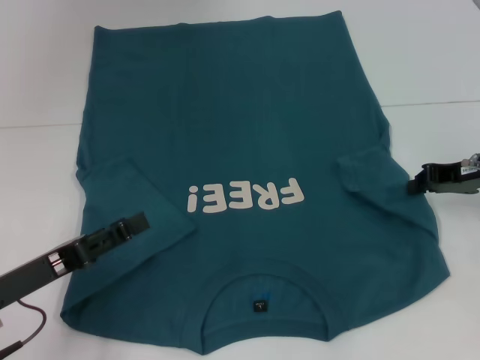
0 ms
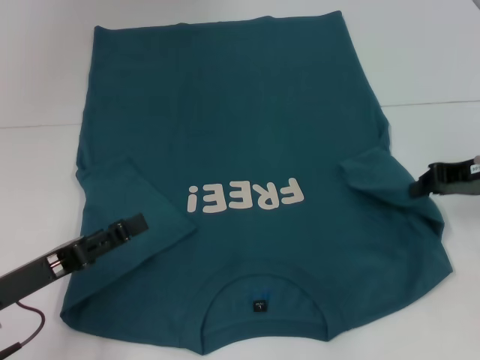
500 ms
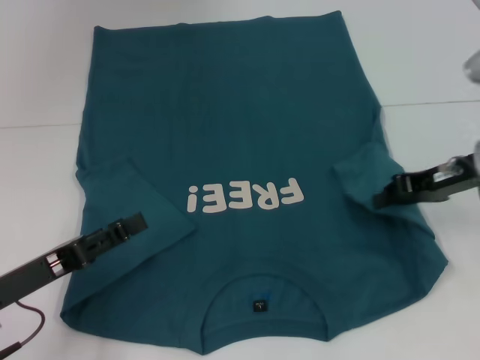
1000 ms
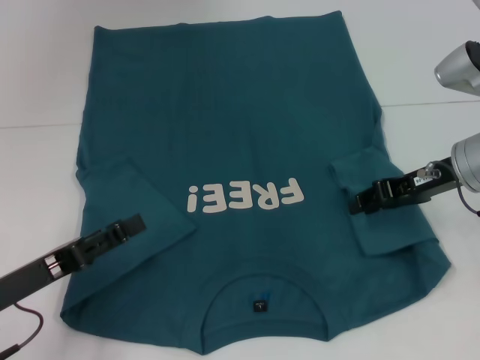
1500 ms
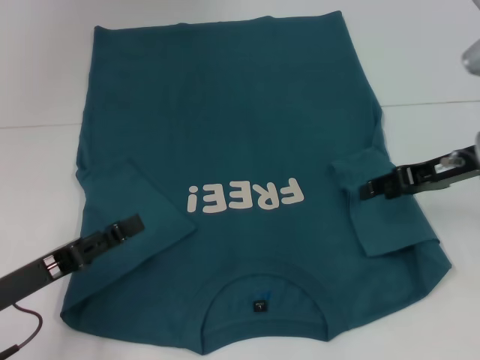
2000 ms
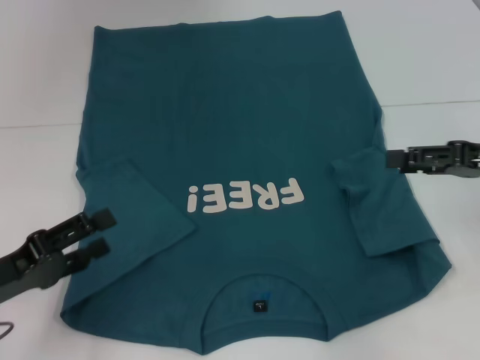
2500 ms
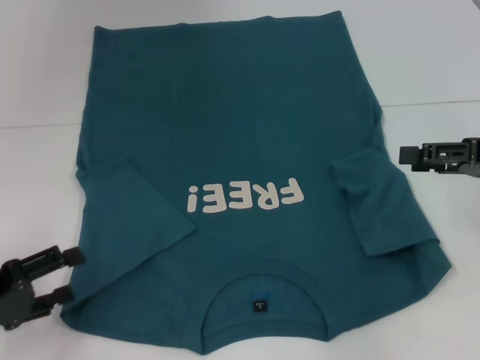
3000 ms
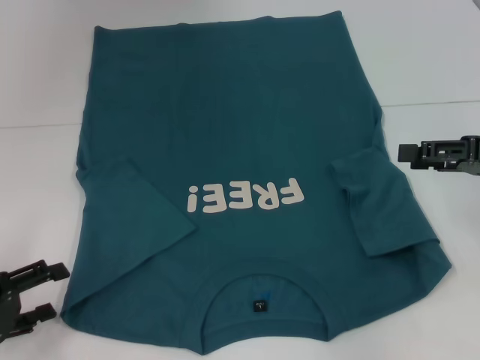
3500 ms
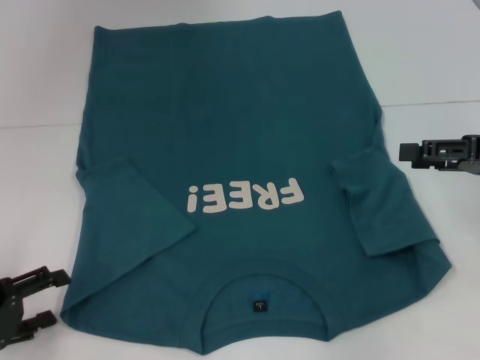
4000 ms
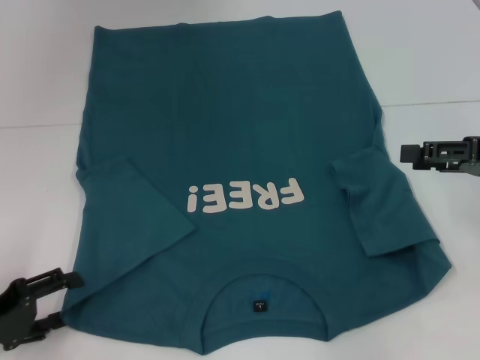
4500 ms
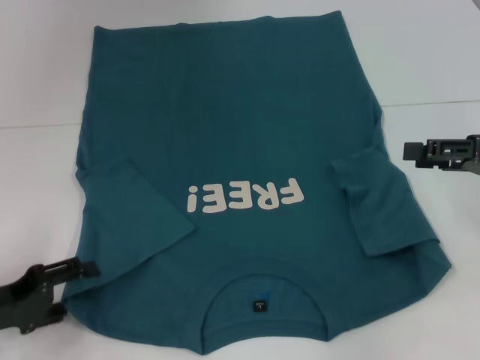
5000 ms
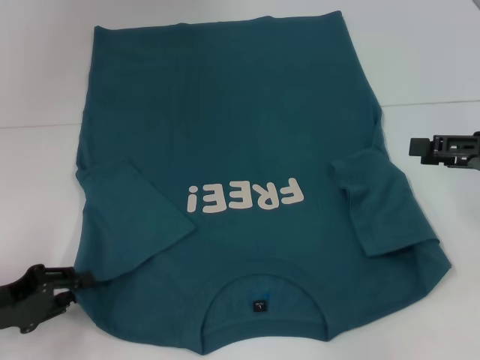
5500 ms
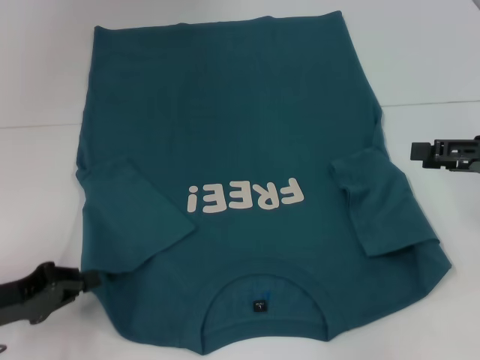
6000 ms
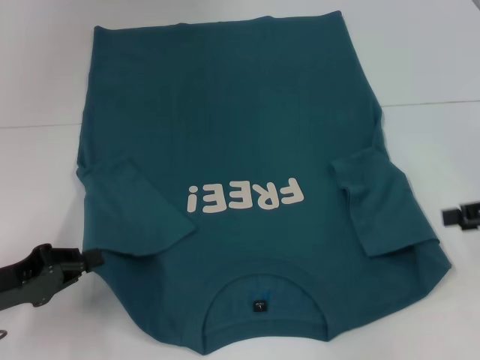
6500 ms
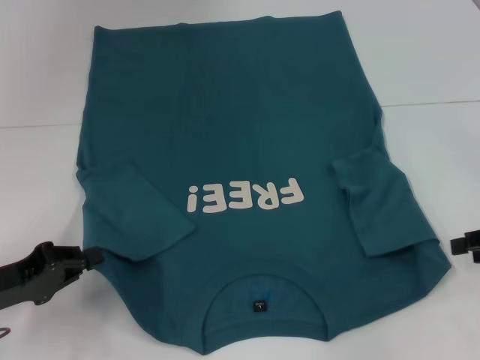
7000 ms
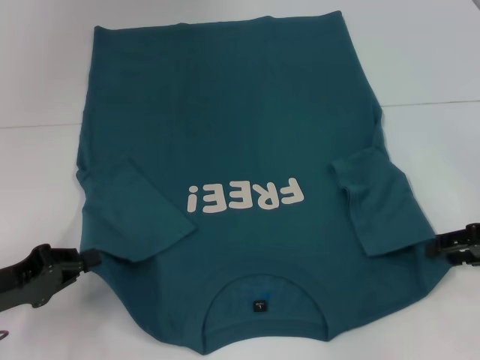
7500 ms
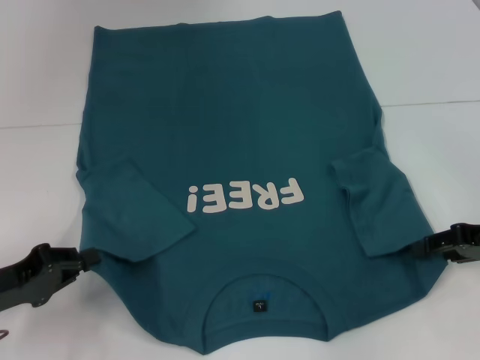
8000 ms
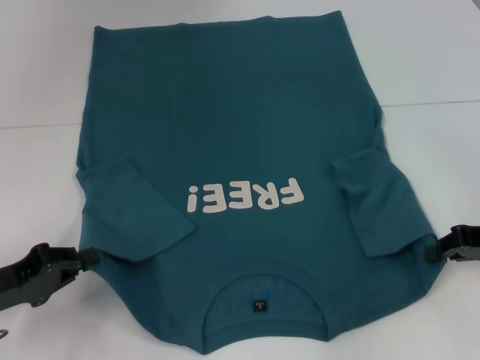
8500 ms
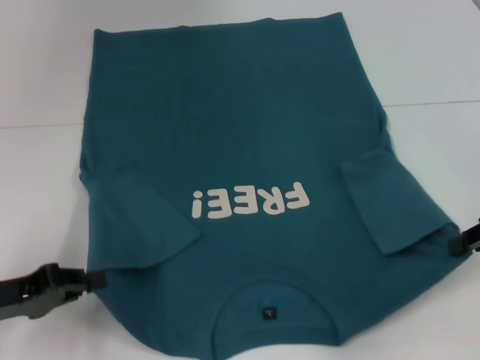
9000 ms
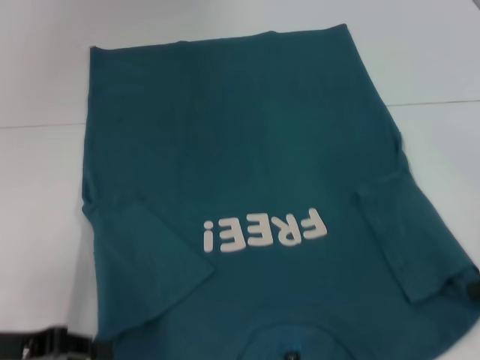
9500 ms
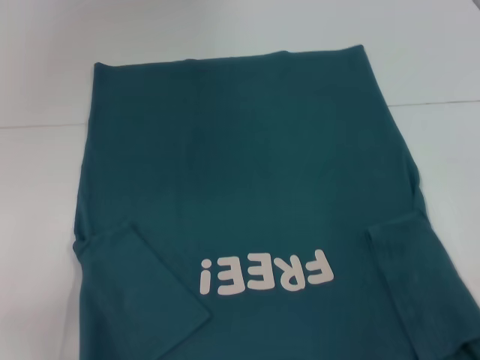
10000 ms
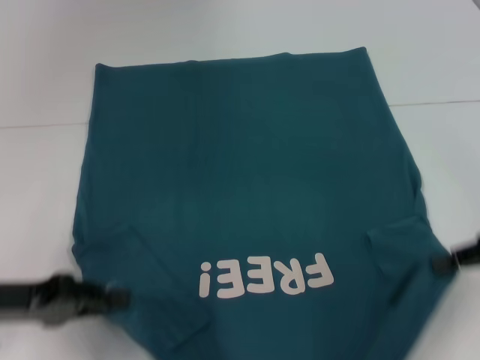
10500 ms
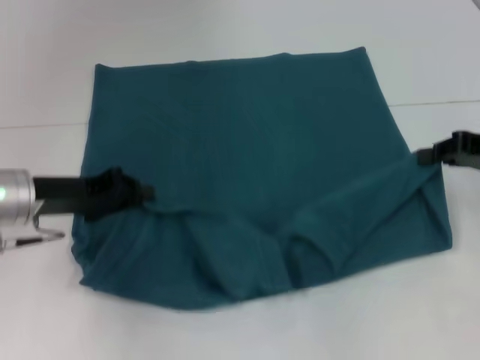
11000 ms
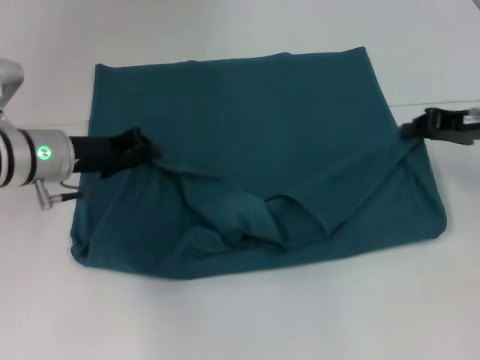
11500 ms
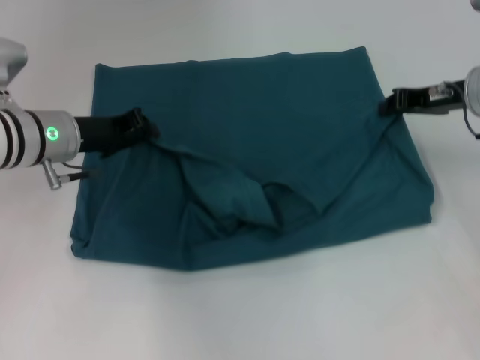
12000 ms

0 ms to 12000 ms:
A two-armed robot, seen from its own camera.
Step, 0 ms to 2500 ms: Fold the bottom right sleeve to the right.
Step, 3000 ms to 6500 ms: Grab the bottom left corner with your left hand.
Step, 7000 ms to 9000 ms: Grab the bottom right corner with your right hand.
0 ms to 2000 ms: The right gripper opens up.
2000 ms to 4000 ms: The left gripper is displaced to the left by about 5 cm, while the right gripper is displaced to the right and backward by approximately 10 cm.
4000 ms to 6000 ms: The left gripper closes.
6000 ms to 8000 ms: The right gripper goes roughly 5 cm downward.
8000 ms to 10000 ms: Both grippers travel together backward, approximately 5 cm. The right gripper closes its fingers.
10000 ms to 12000 ms: The left gripper shifts roughly 25 cm forward and to the right, while the right gripper heads forward and to the left, covering approximately 20 cm.

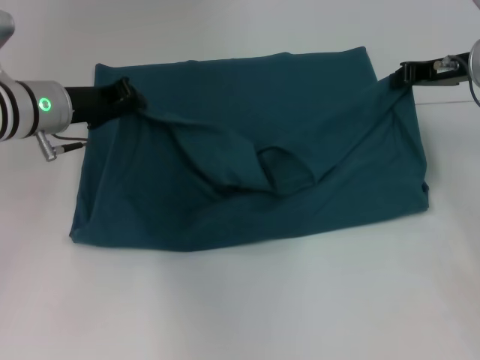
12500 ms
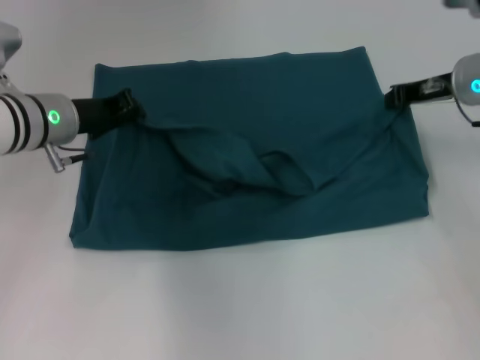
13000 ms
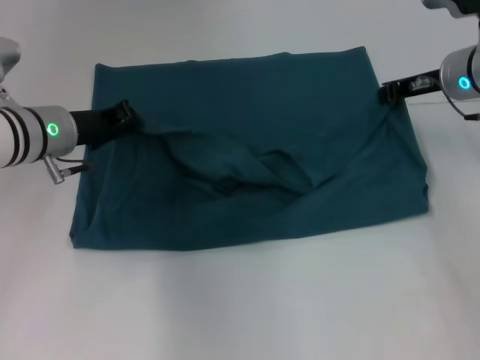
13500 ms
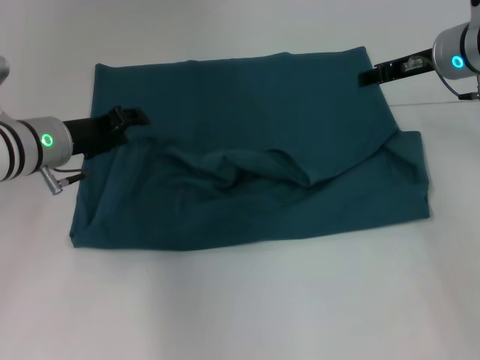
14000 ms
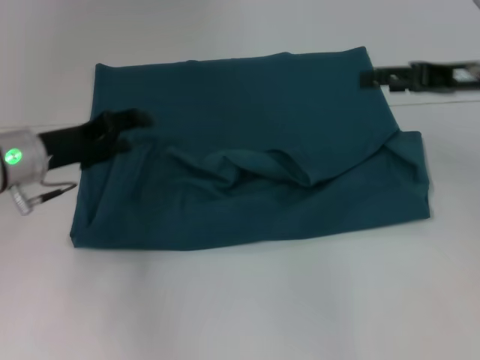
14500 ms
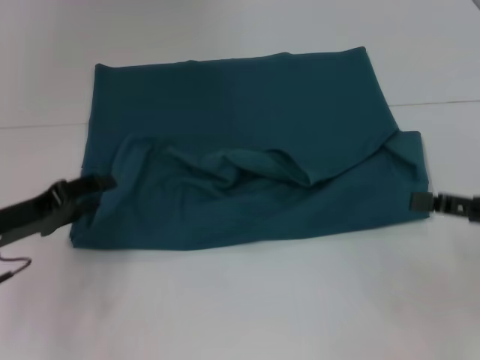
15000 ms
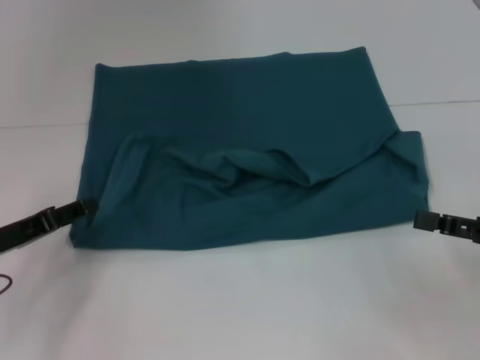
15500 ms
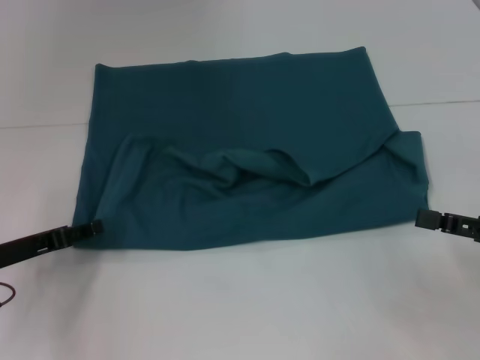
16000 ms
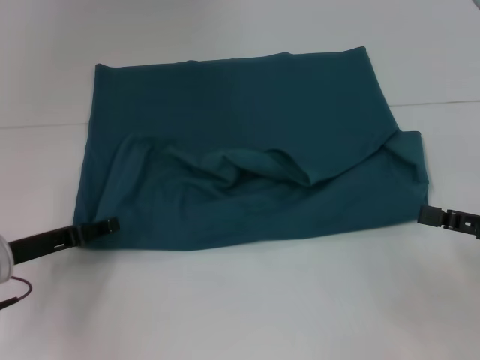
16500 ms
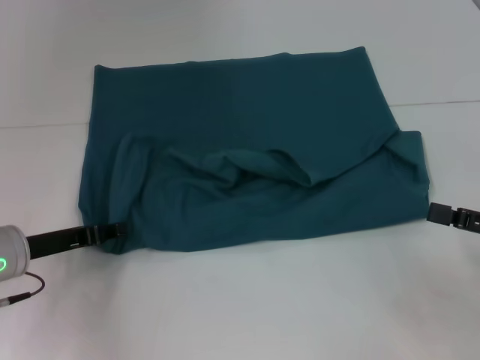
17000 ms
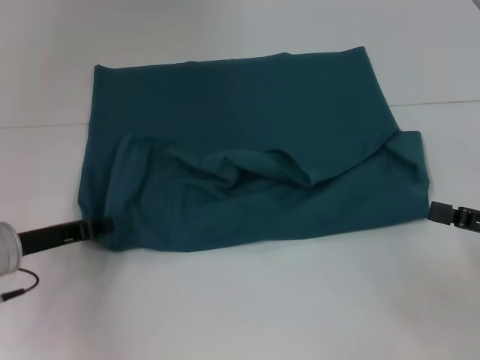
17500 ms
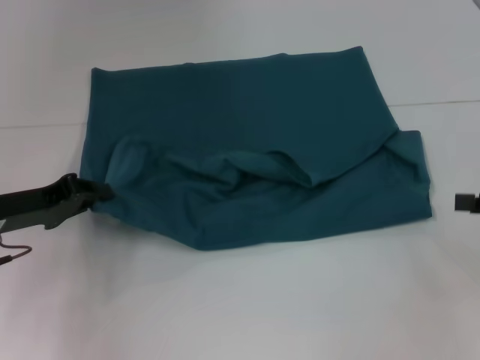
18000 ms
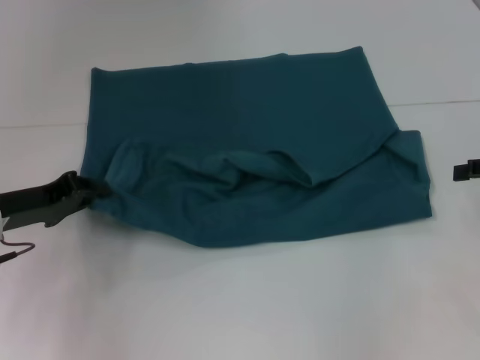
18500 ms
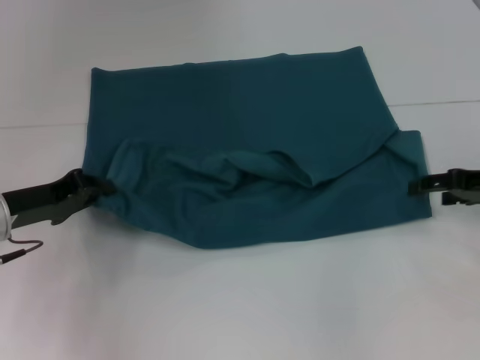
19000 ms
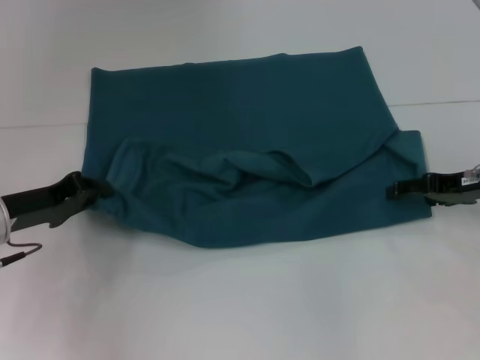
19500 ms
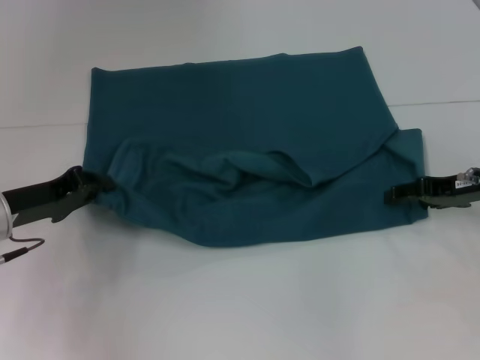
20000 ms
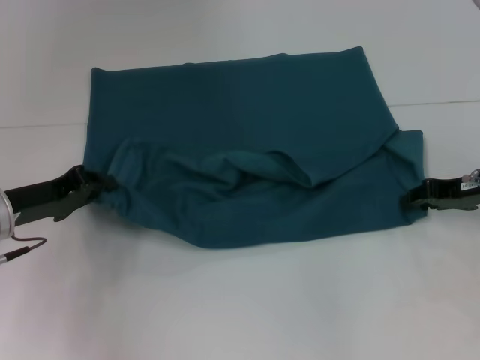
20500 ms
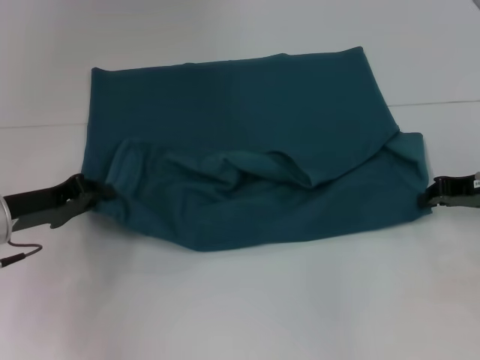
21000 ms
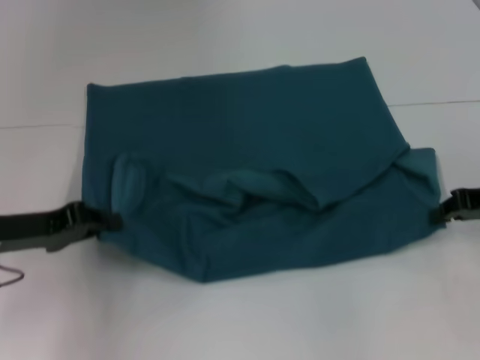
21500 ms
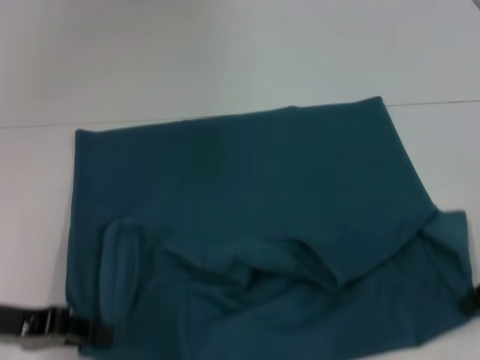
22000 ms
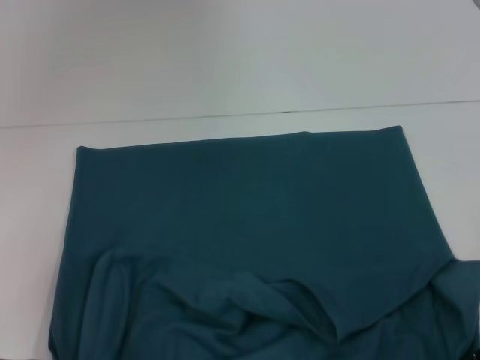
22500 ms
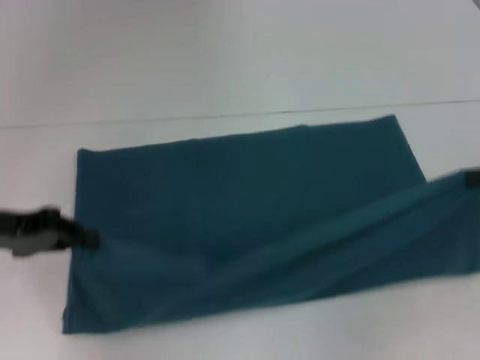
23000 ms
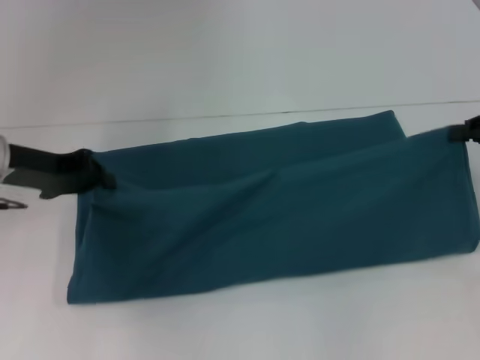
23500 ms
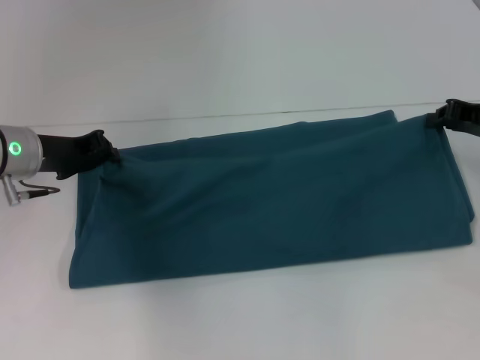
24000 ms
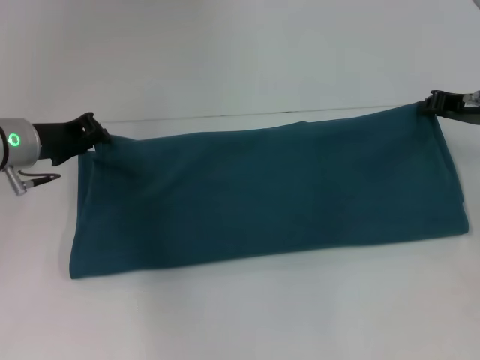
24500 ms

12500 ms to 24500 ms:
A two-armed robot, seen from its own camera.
Step, 14500 ms to 22000 ms: Pull the clothes with your left hand.
Step, 14500 ms to 22000 ms: Pull the clothes with your right hand.
12500 ms to 14500 ms: Both grippers move backward, about 5 cm. The right gripper opens its fingers, while the left gripper opens.
14500 ms to 16500 ms: The right gripper is displaced backward and downward by about 15 cm. Meanwhile the left gripper goes roughly 10 cm downward and backward.
16500 ms to 18500 ms: The left gripper closes up, while the right gripper is displaced forward by some 10 cm.
18500 ms to 20500 ms: The right gripper is displaced to the left by roughly 5 cm, and closes up.
20500 ms to 22500 ms: The grippers both shift backward by some 10 cm. The right gripper closes.
22500 ms to 24500 ms: Both grippers travel together forward, approximately 15 cm.

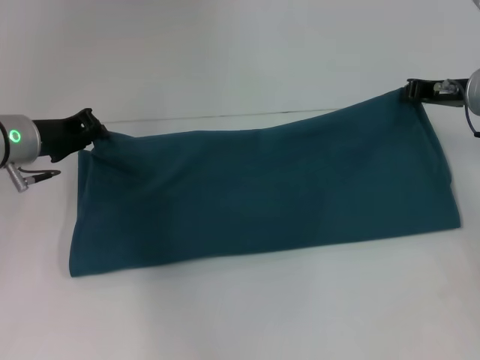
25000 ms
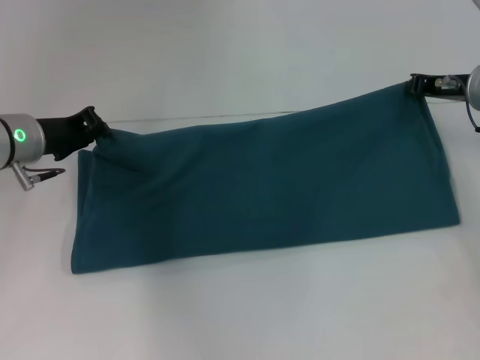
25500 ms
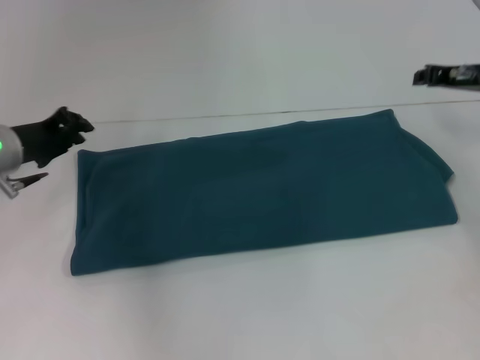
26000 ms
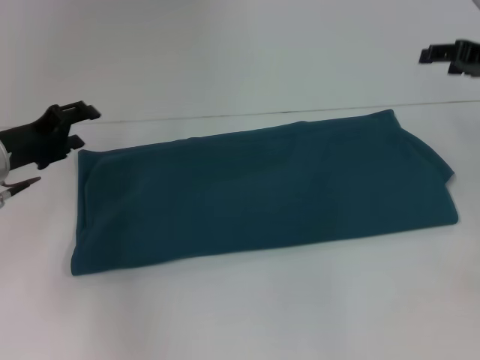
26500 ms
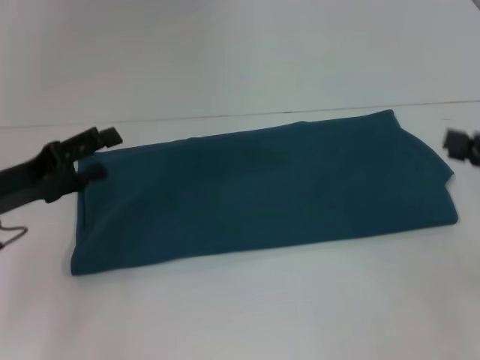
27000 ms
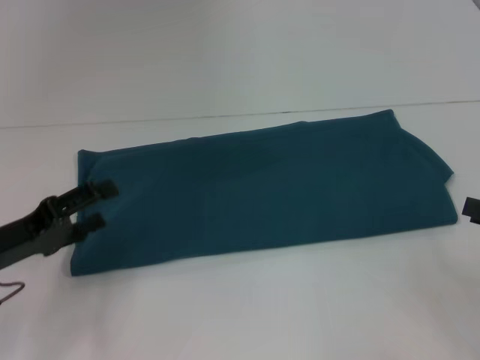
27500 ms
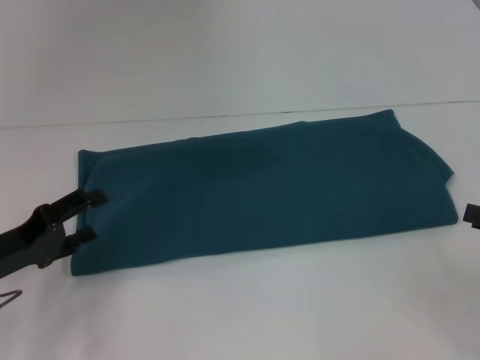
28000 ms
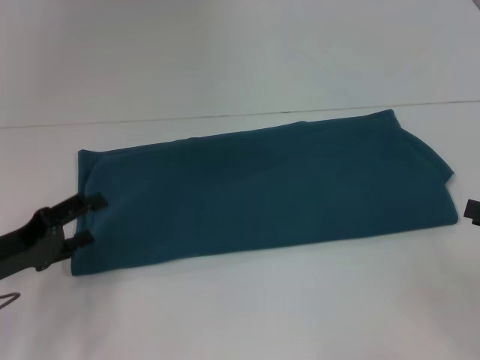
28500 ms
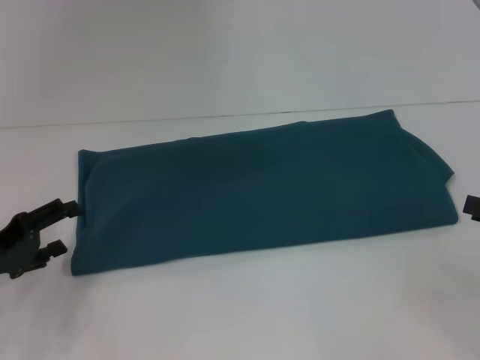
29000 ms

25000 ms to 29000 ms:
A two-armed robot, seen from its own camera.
25000 ms to 27000 ms: The left gripper moves backward, about 10 cm, and opens; the right gripper is displaced backward and to the right by roughly 20 cm, and opens up.
27000 ms to 29000 ms: The left gripper changes place by about 5 cm. The right gripper ends up approximately 5 cm from where it was.
